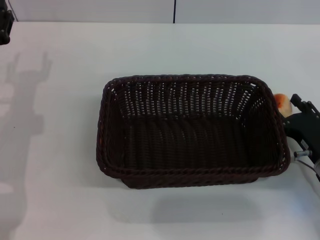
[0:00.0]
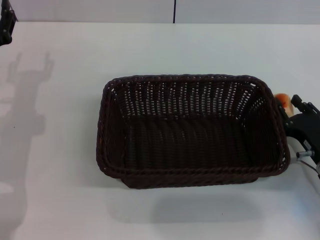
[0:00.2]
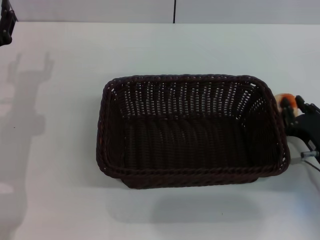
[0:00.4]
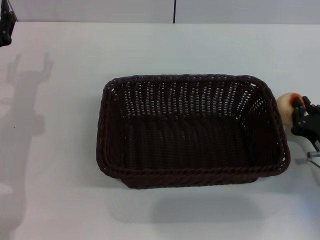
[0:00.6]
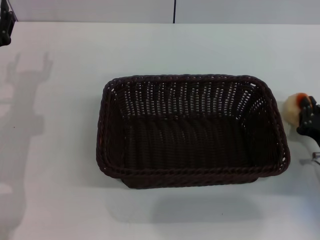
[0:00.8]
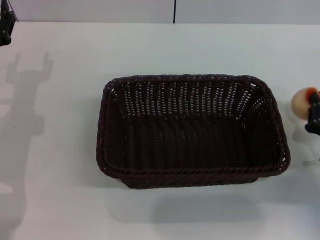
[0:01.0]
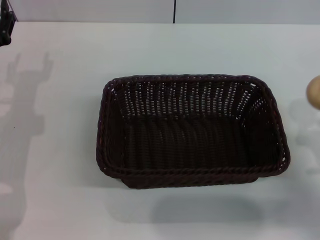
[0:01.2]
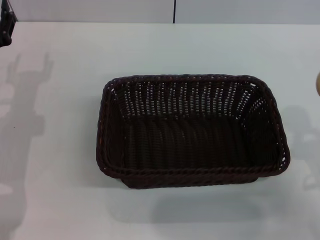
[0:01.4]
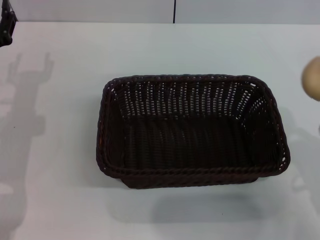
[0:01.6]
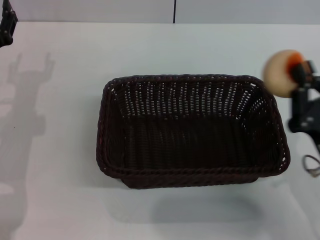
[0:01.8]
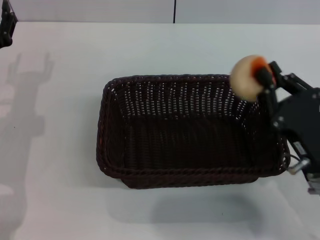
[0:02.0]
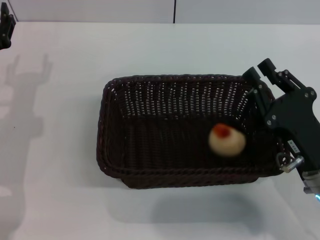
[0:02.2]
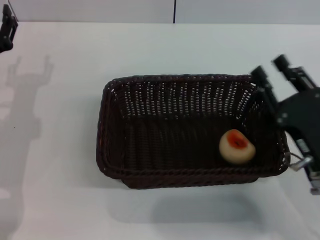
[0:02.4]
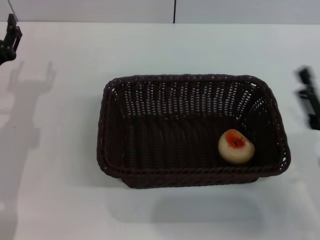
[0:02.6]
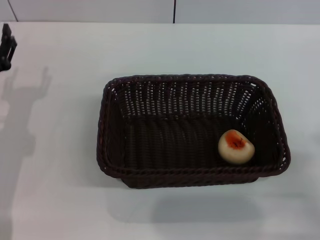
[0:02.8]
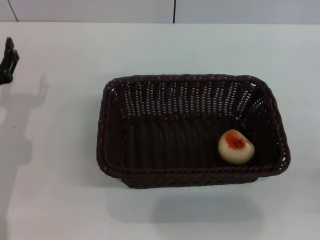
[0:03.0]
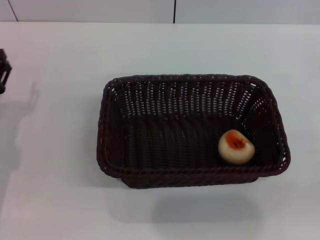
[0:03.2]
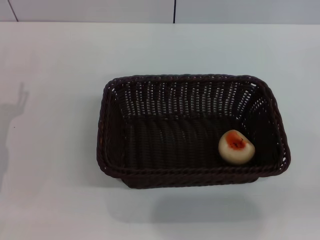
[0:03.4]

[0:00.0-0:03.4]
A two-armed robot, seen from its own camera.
Step, 0:01.2 to 0:02.2: Place the egg yolk pastry into the basket with the right gripper.
0:00.0 to 0:01.6: The right gripper travels backward and upward by some 10 cm, and closes.
0:01.6 to 0:03.4: The left gripper moves backward, roughly 5 cm. The right gripper moves to the right and backward, approximately 15 cm, and opens its fingers.
